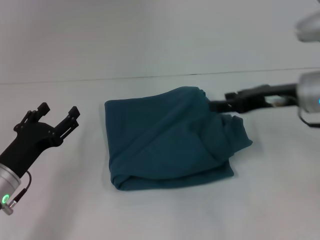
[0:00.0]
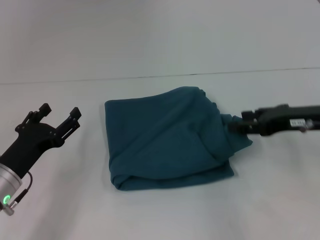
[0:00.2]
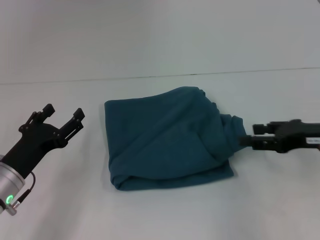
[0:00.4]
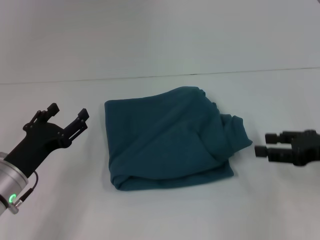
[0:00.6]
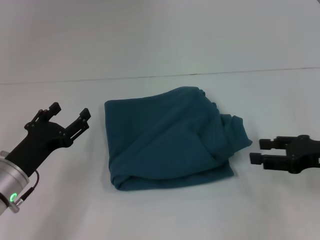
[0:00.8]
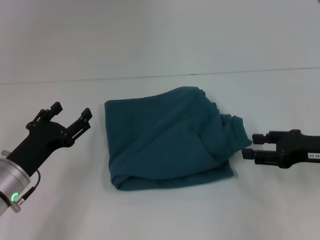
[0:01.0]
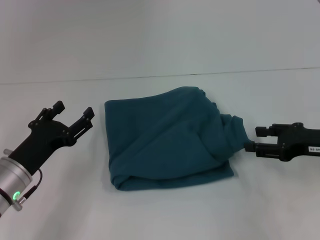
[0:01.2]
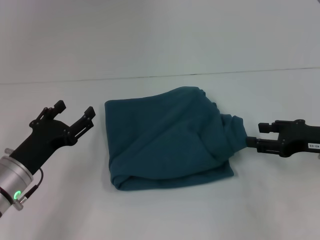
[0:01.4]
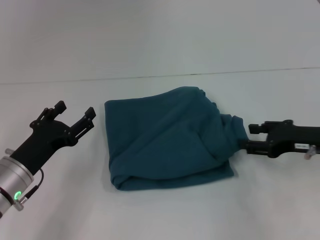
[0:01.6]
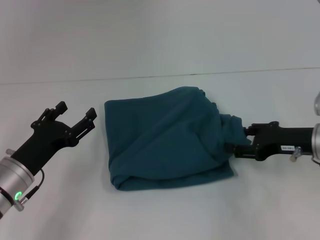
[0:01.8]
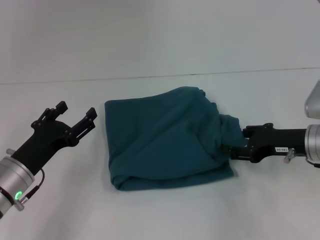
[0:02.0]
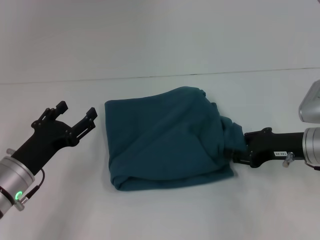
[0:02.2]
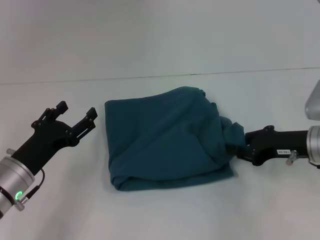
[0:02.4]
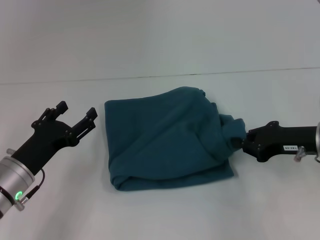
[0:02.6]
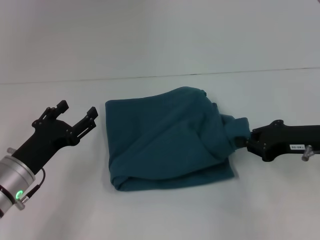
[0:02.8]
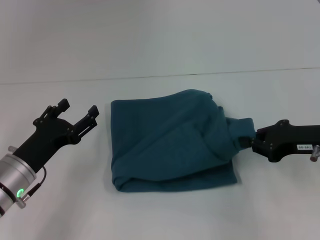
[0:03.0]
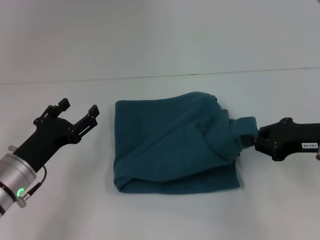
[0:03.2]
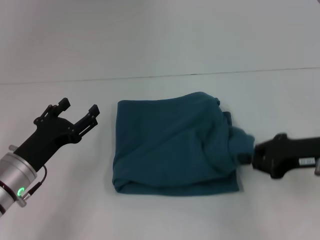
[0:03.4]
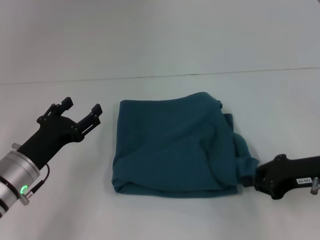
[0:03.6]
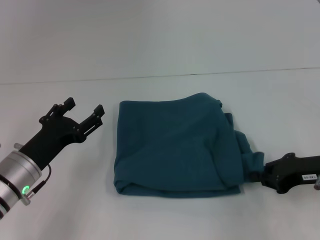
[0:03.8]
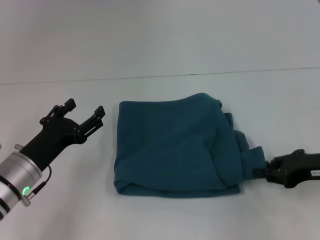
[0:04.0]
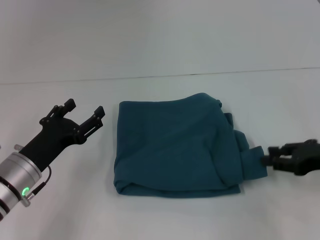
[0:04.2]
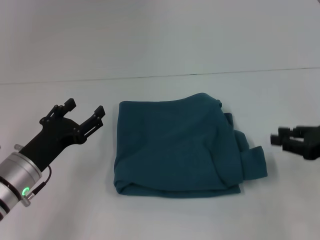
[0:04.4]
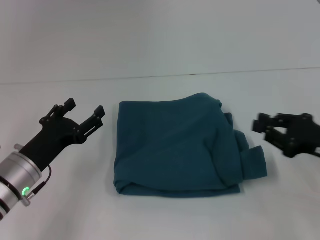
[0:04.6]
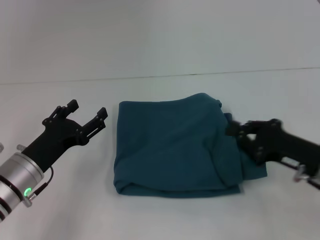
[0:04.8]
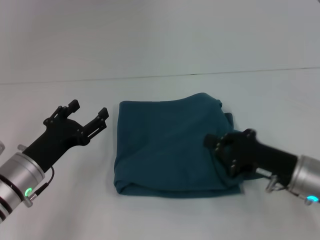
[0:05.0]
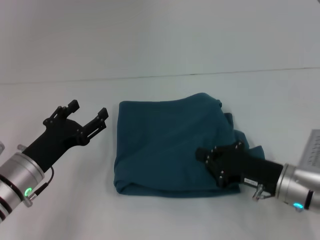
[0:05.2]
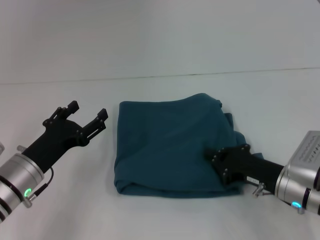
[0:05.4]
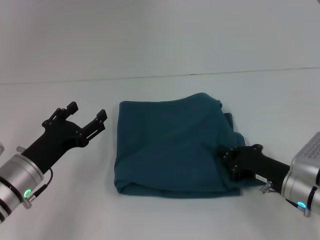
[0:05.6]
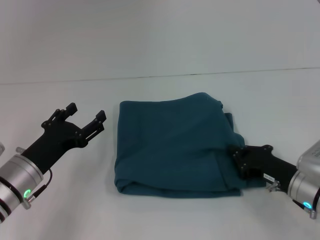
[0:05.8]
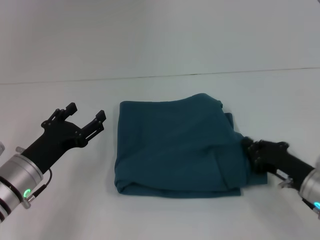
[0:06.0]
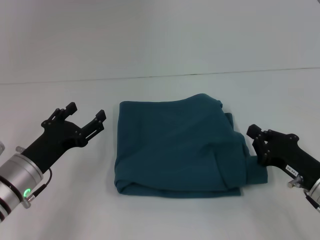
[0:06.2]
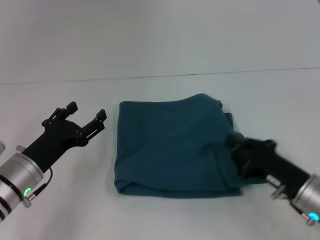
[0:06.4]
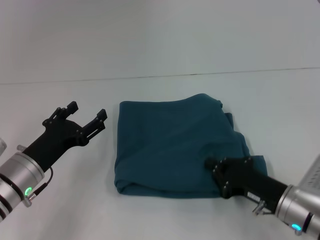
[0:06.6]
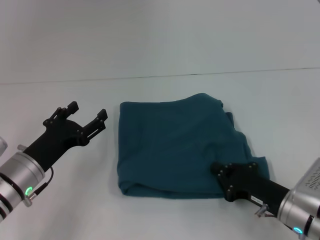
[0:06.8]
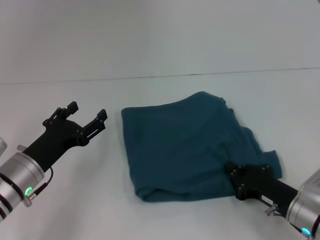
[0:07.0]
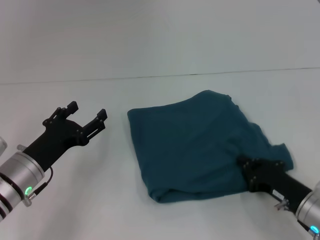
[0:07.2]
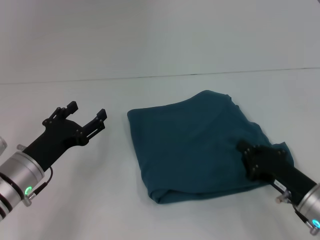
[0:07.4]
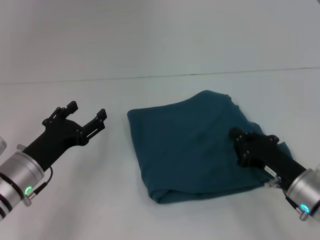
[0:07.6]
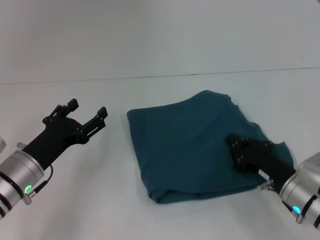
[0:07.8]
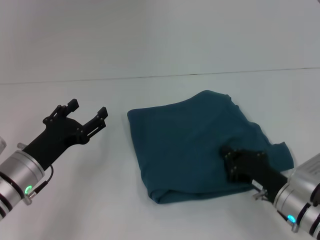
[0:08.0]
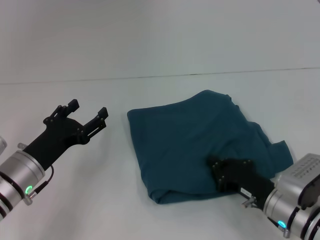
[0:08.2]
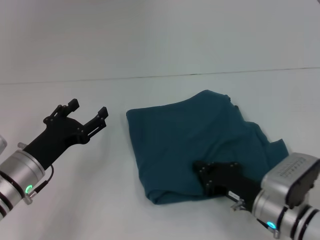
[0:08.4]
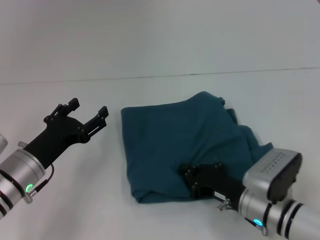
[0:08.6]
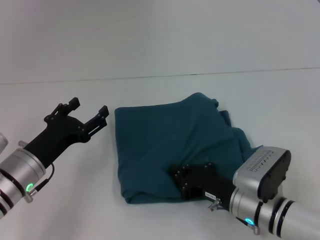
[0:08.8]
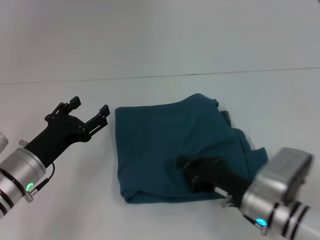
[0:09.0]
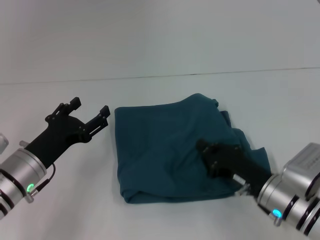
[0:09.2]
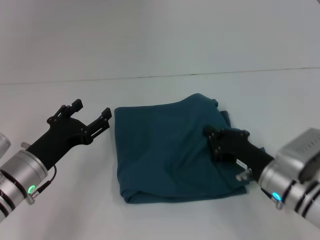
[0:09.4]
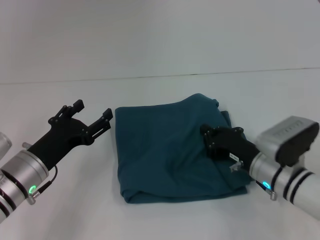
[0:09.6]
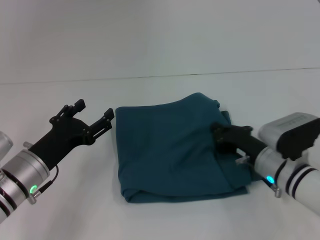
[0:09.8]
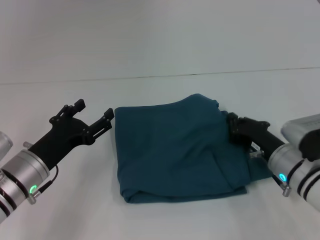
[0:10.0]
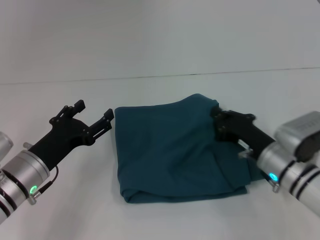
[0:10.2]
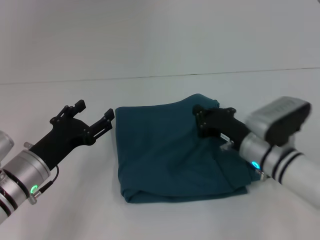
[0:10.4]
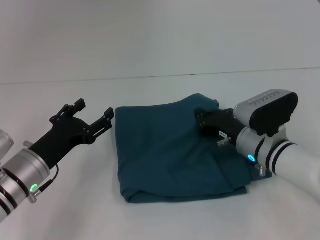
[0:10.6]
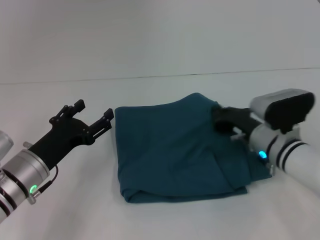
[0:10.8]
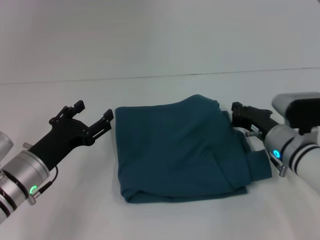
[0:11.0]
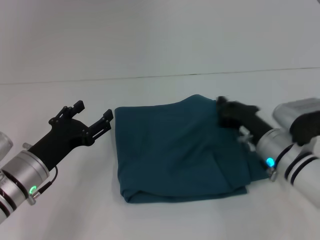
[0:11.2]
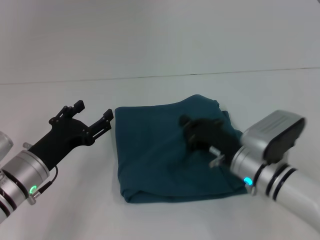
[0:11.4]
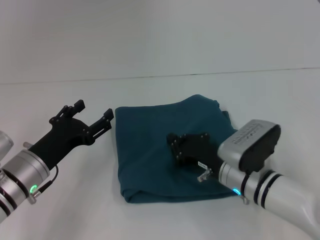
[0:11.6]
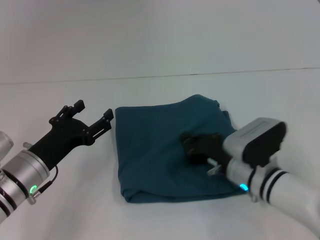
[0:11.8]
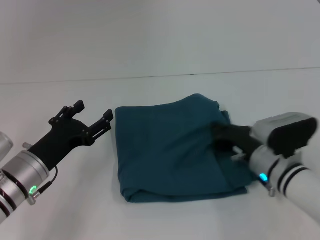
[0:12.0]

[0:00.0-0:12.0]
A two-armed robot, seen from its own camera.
0:00.0 to 0:01.6: The right gripper shifts approximately 10 cm downward and to the right.
0:01.6 to 0:03.0: The right gripper closes its fingers.
0:03.0 to 0:04.4: The right gripper moves to the right, about 5 cm.
0:04.4 to 0:06.0: The right gripper travels downward and to the left by roughly 15 cm, and closes up.
0:06.0 to 0:07.6: The grippers stay close to where they were, moving slightly.
0:07.6 to 0:09.0: The right gripper is displaced to the left by approximately 5 cm.
0:09.0 to 0:10.4: The right gripper shifts about 5 cm forward.
0:10.4 to 0:12.0: The right gripper goes left and right, some 5 cm each way, reversing 2 times.

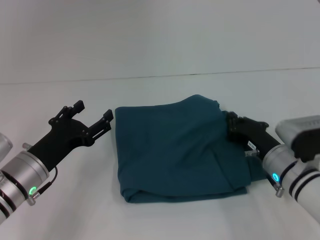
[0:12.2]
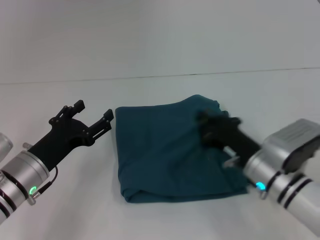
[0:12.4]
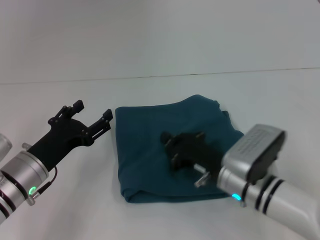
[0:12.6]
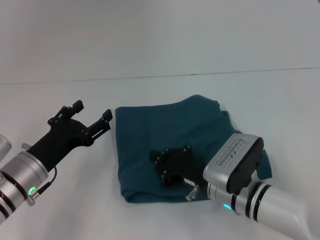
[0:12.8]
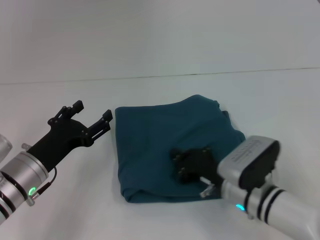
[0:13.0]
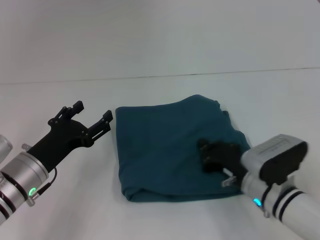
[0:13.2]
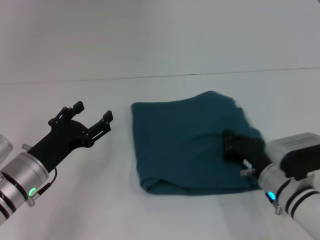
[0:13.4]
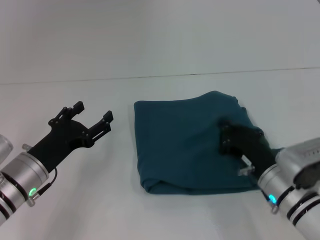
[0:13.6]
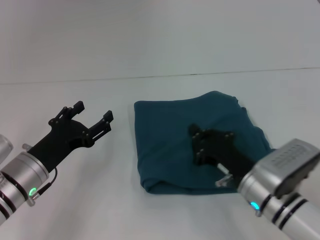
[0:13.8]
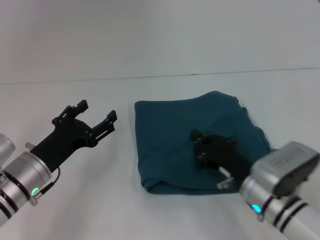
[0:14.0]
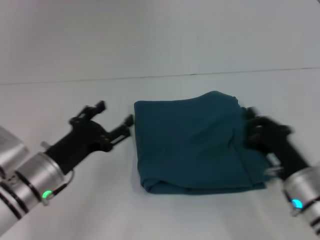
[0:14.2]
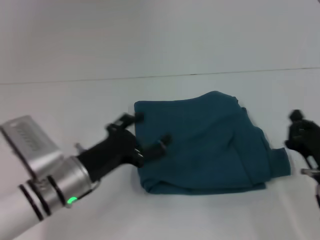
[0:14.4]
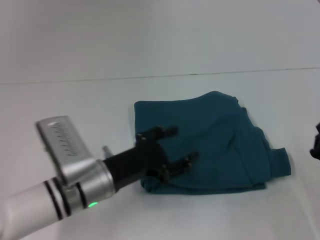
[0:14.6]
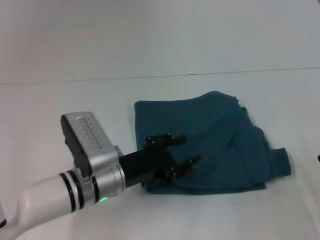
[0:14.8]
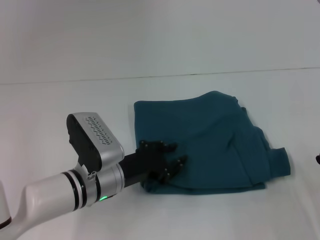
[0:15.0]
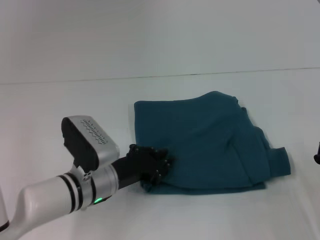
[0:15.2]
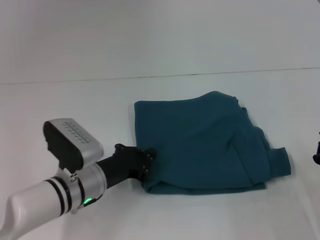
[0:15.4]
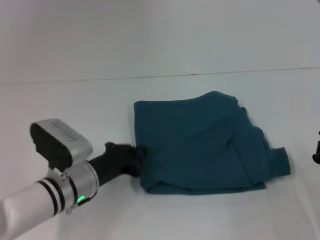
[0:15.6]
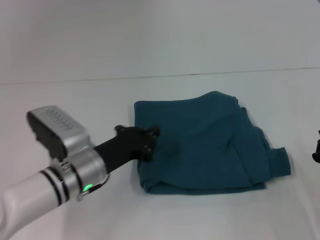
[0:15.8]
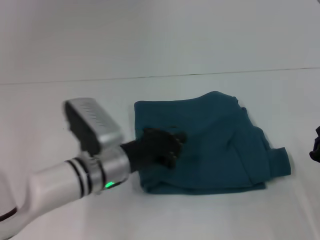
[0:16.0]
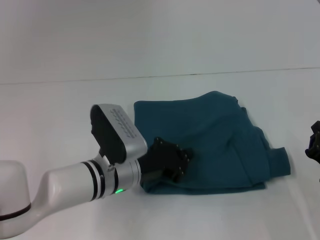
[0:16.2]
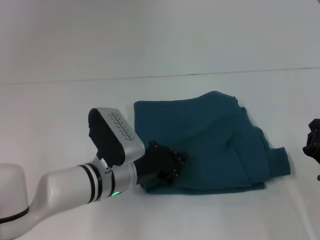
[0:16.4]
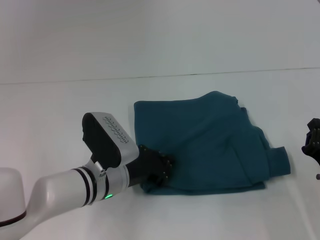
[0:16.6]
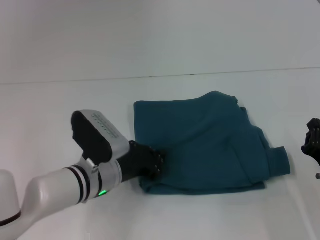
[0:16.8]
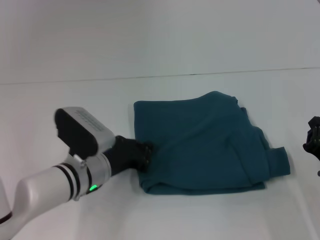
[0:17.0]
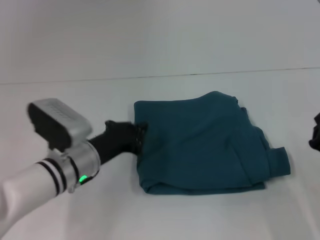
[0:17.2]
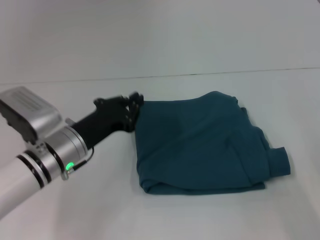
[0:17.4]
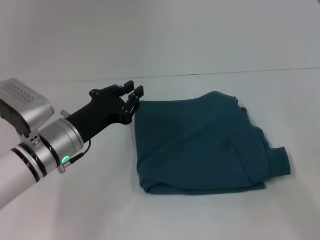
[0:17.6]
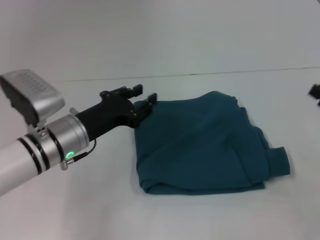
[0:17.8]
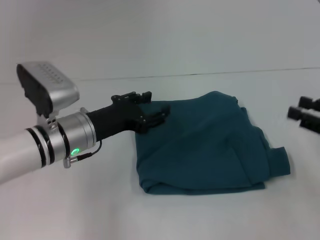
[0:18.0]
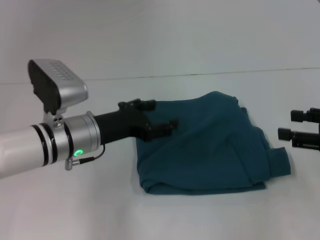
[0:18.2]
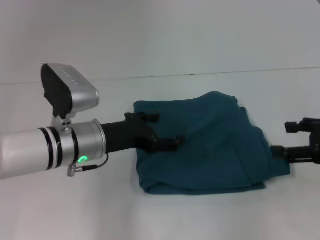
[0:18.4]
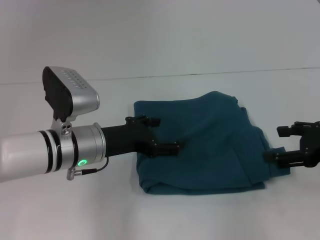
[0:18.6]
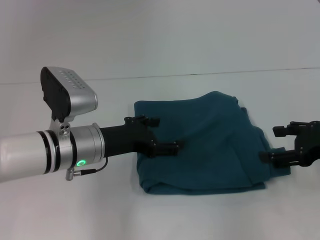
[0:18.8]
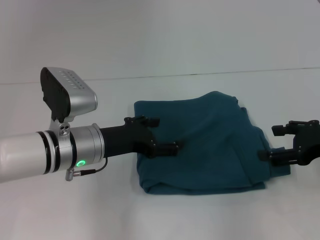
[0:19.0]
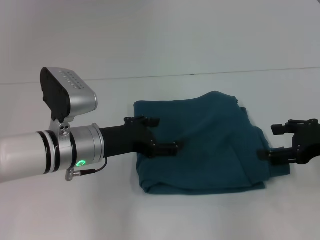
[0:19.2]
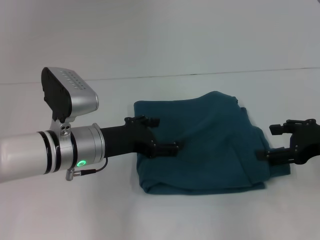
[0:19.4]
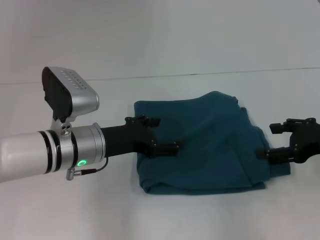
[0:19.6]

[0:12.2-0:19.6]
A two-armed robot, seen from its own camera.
0:12.2 to 0:13.6: The right gripper reaches approximately 10 cm to the left, then returns.
0:13.6 to 0:15.2: The left gripper travels to the right by about 10 cm, and closes up; the right gripper goes about 10 cm to the right and backward.
0:15.2 to 0:16.6: The left gripper closes.
0:16.6 to 0:18.2: The left gripper heads upward, covering some 5 cm, and opens up, while the right gripper travels upward and to the right by roughly 15 cm, and opens.
0:18.2 to 0:19.6: The left gripper opens, while the right gripper opens its fingers.

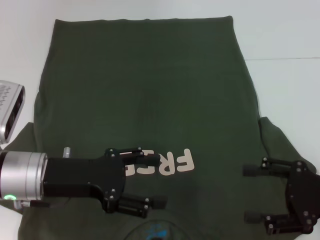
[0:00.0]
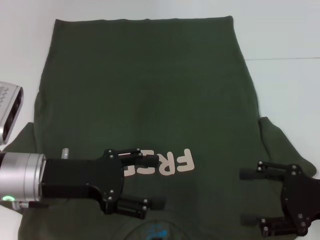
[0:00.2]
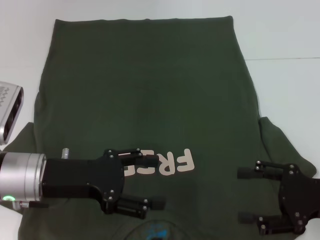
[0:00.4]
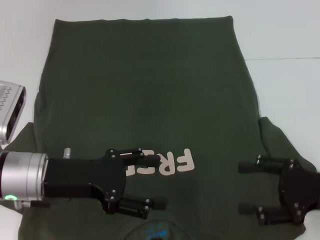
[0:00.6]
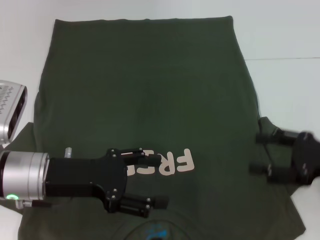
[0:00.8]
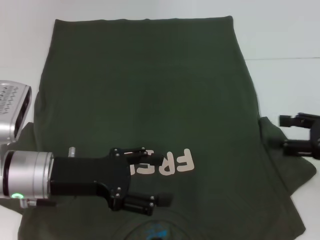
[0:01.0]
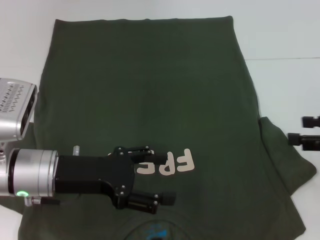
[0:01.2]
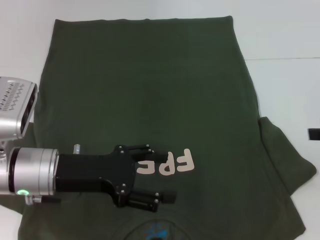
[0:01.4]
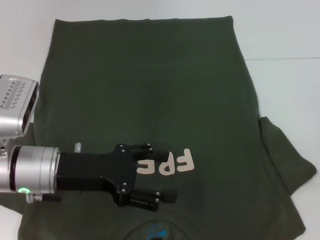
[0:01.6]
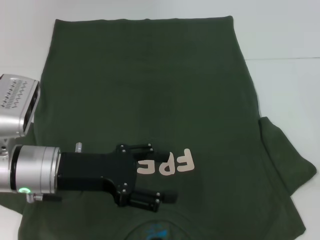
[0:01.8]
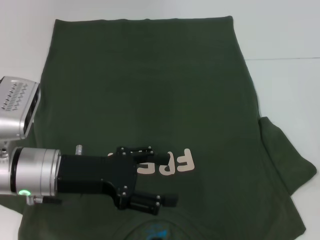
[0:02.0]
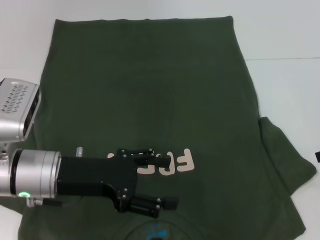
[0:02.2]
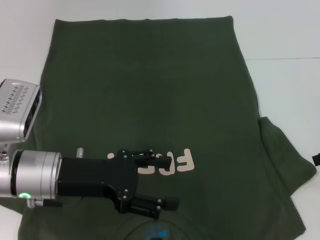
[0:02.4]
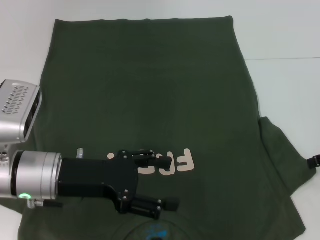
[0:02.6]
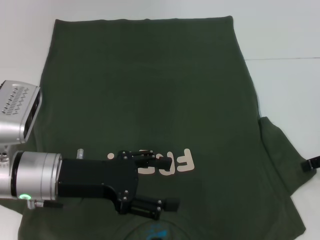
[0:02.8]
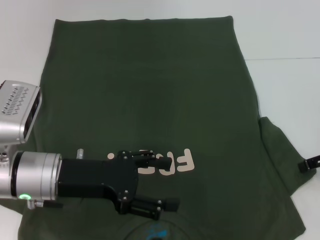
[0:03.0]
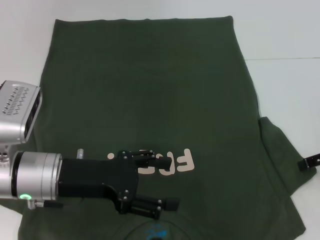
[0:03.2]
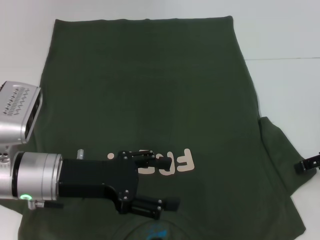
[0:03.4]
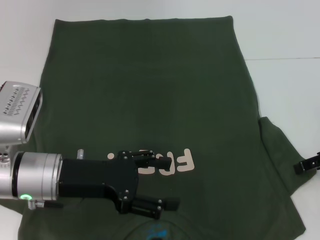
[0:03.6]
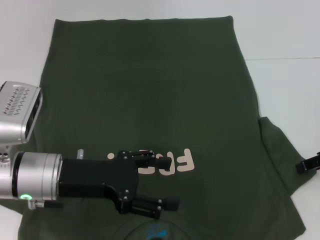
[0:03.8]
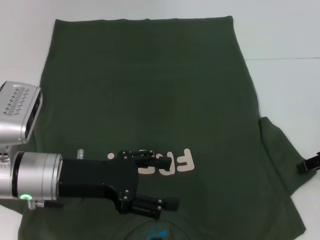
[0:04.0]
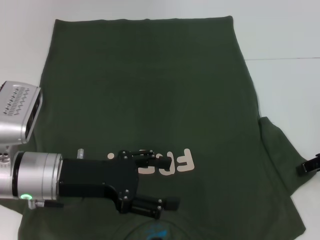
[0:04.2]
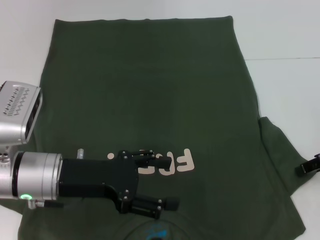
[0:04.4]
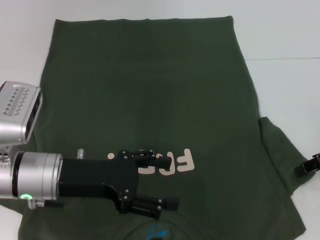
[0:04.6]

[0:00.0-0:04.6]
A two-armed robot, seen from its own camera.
0:00.0 to 0:01.6: The right gripper moves to the right, upward and forward, approximately 10 cm.
0:01.6 to 0:03.0: The right gripper shifts by about 5 cm.
